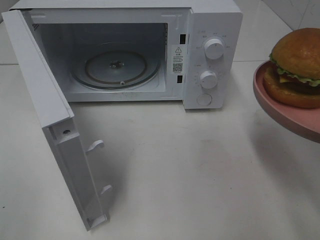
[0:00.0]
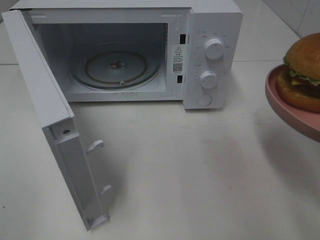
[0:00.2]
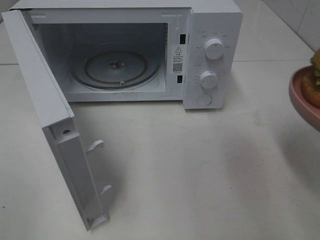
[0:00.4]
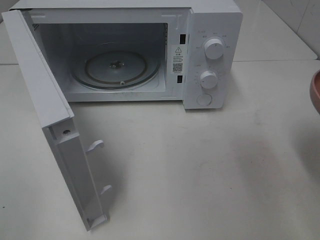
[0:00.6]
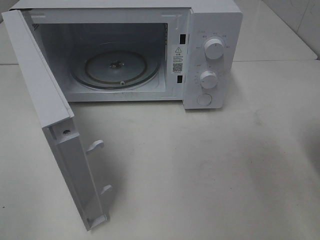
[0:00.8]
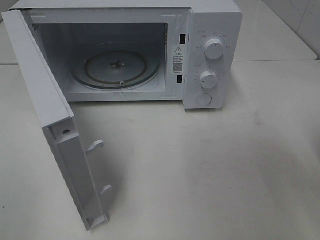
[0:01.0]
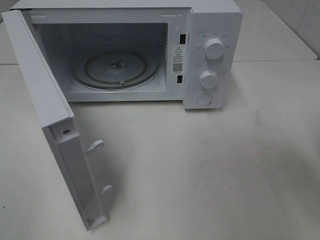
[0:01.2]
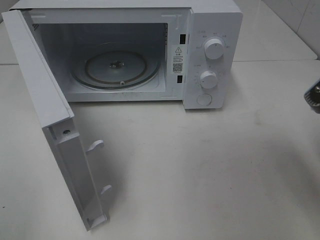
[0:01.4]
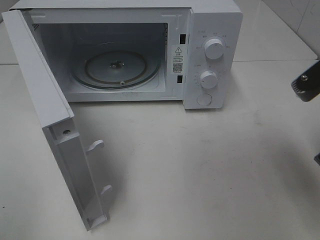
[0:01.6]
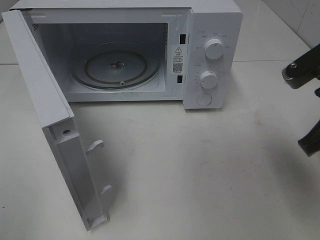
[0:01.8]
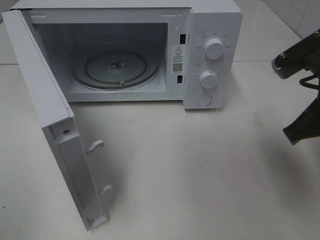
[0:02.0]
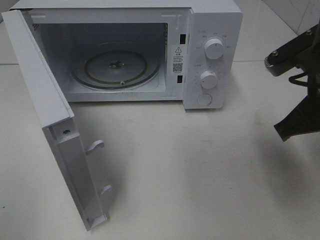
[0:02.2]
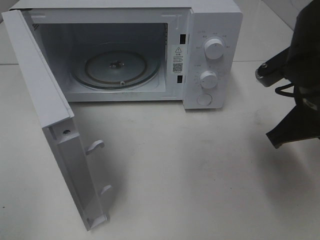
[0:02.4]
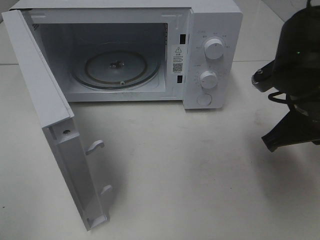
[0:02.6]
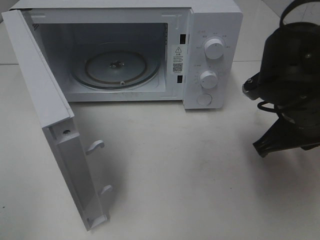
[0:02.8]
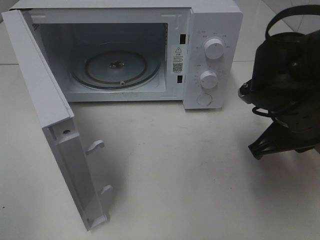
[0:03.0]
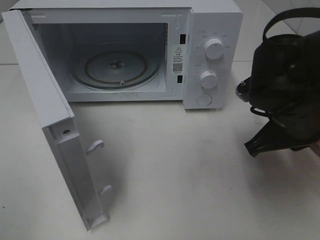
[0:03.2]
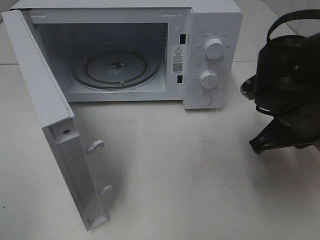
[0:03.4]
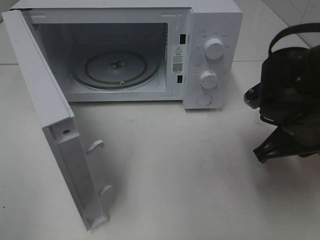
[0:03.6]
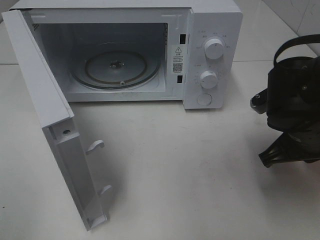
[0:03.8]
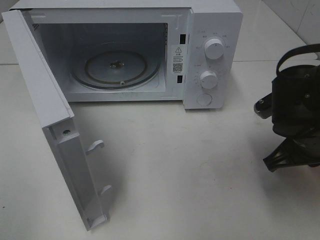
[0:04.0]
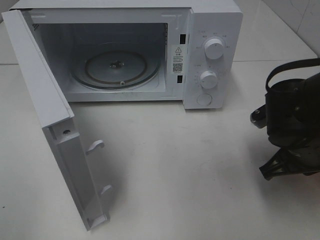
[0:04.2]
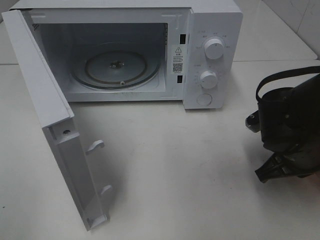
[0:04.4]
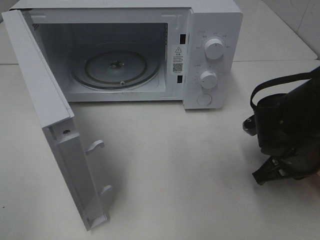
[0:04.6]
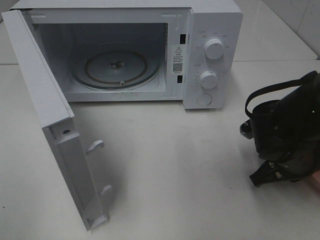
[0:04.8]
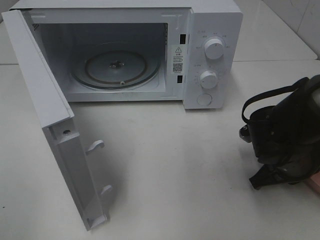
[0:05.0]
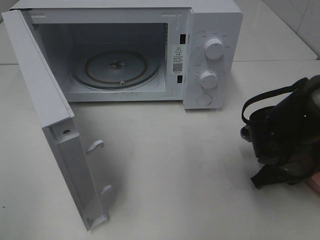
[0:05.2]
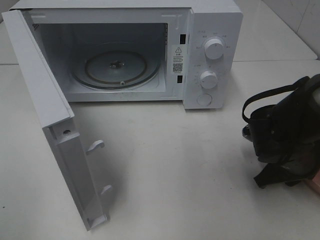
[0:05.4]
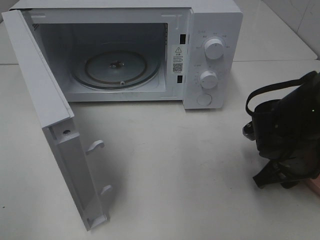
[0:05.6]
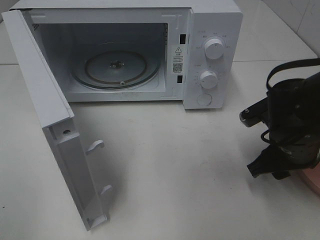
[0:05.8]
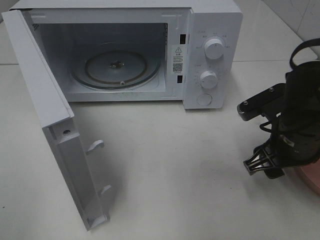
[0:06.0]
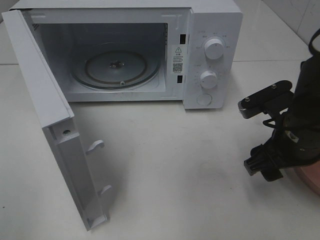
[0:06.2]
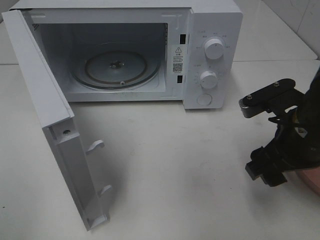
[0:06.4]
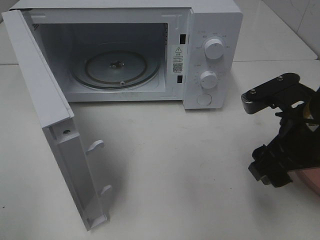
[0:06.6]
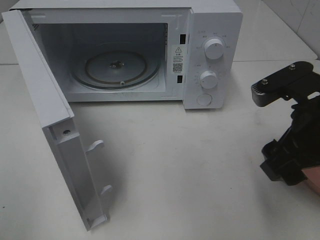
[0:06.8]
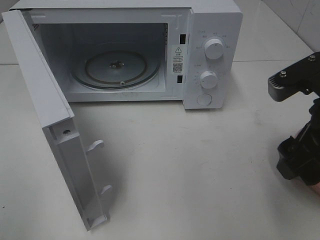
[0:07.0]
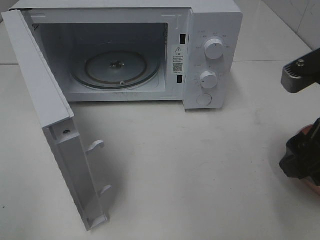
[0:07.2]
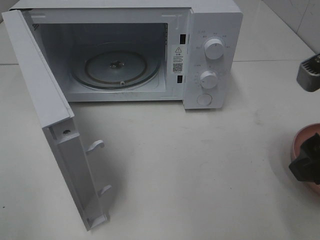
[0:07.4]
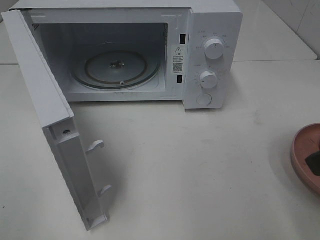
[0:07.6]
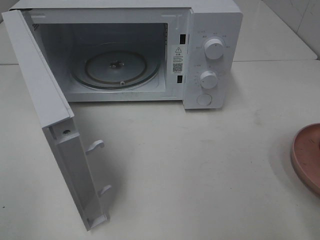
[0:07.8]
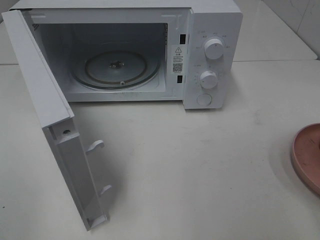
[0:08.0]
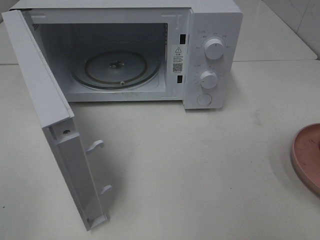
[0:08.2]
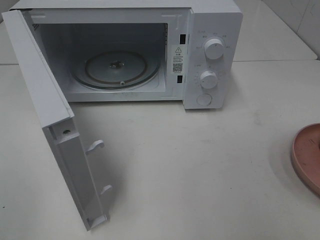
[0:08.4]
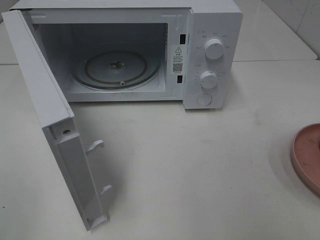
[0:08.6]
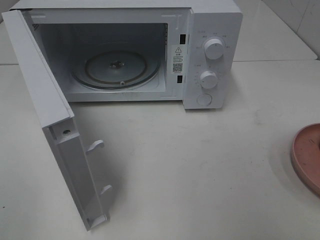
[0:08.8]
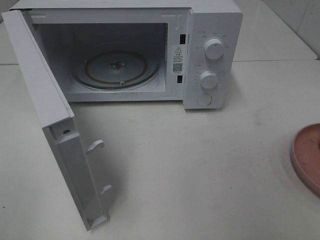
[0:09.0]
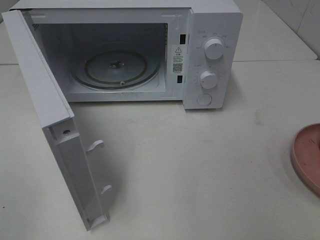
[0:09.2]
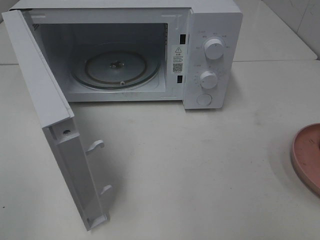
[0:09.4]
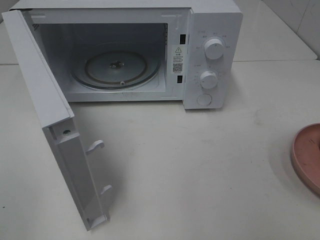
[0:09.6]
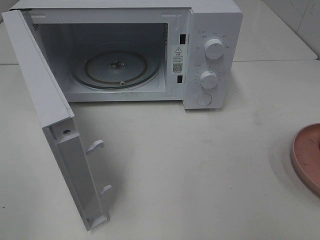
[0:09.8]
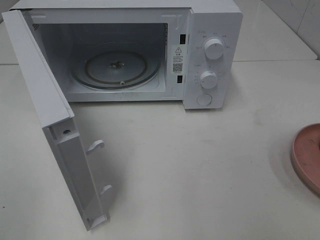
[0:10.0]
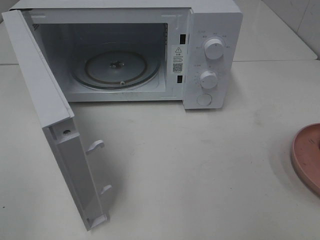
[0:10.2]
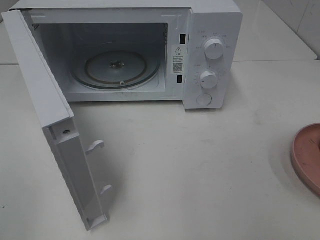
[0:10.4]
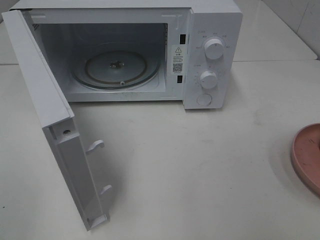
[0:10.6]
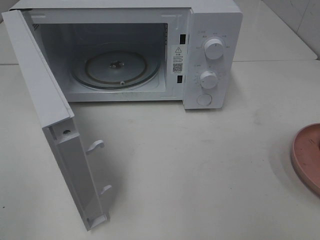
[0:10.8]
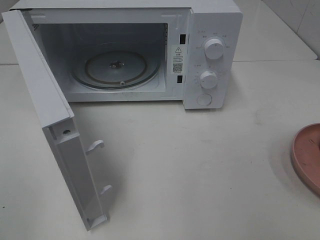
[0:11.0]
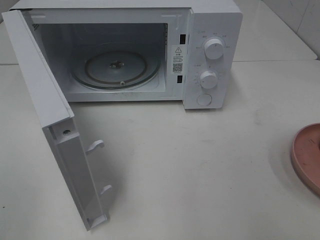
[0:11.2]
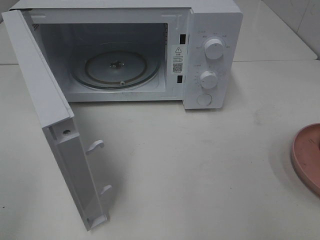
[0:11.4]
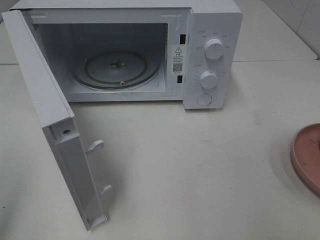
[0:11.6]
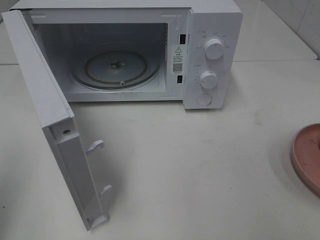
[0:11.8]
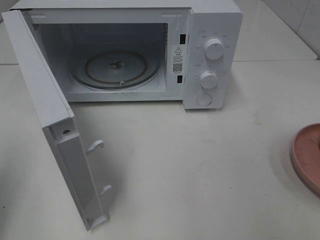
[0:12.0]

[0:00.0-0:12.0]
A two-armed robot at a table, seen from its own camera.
Task of the whole recording: Heat the burger.
Step, 0:00.0 to 0:05.8: Right hand: place the plate on the table.
0:00.0 to 0:01.6: The right gripper moves forward, approximately 5 cm.
0:01.6 to 0:03.0: The right gripper goes some 10 cm downward and forward.
0:03.0 to 0:04.4: The right gripper travels downward by roughly 5 cm.
0:04.4 to 0:06.0: The right gripper opens its fingers.
0:06.0 to 0:07.6: The right gripper shifts about 15 cm upward and backward.
0:07.6 to 0:09.0: The right gripper goes roughly 15 cm backward and to the right.
0:09.0 to 0:10.4: The two grippers keep their place.
0:10.4 to 0:12.0: The left gripper moves forward, approximately 10 cm, and closes its fingers.

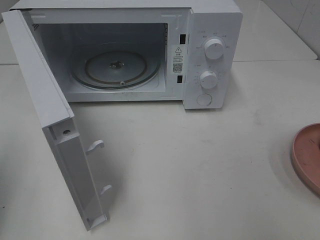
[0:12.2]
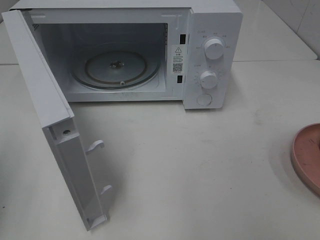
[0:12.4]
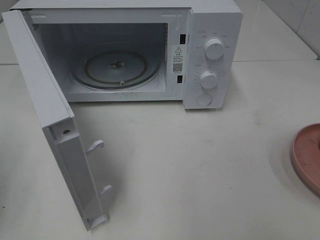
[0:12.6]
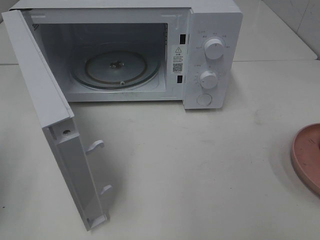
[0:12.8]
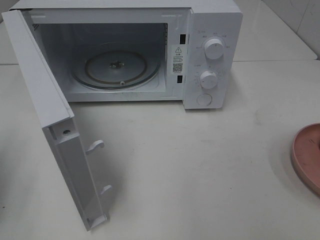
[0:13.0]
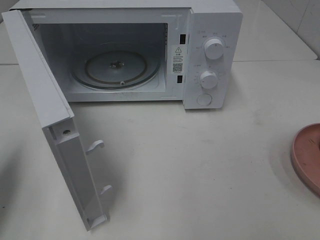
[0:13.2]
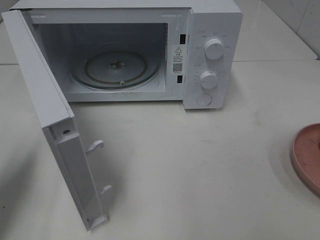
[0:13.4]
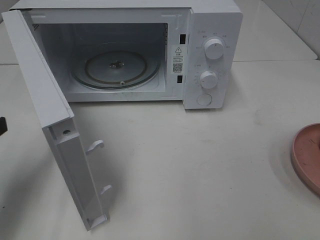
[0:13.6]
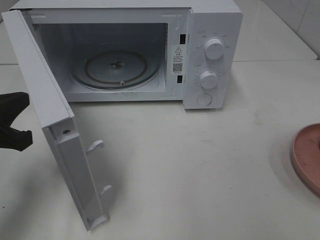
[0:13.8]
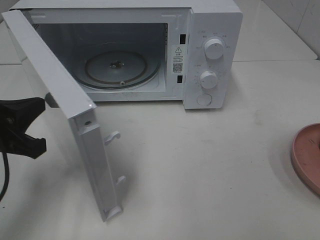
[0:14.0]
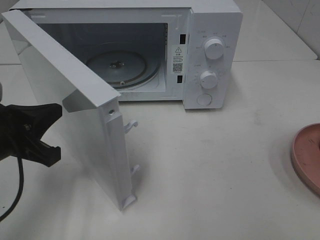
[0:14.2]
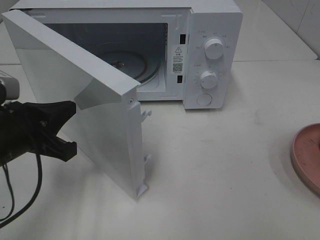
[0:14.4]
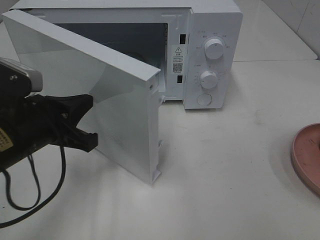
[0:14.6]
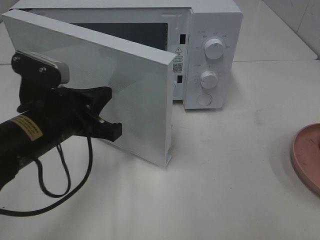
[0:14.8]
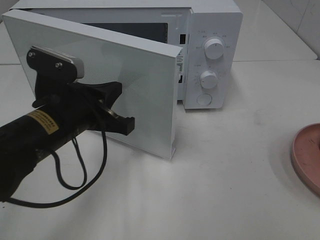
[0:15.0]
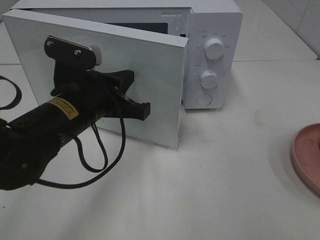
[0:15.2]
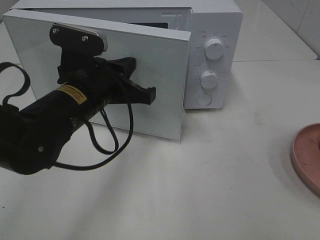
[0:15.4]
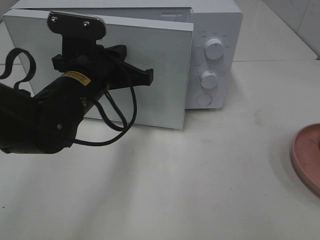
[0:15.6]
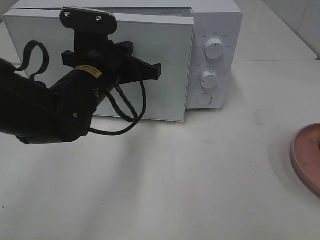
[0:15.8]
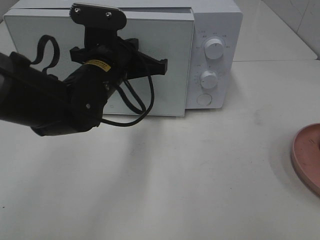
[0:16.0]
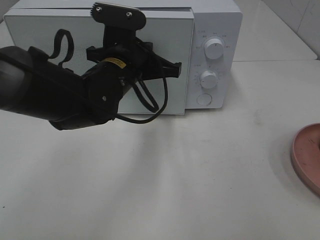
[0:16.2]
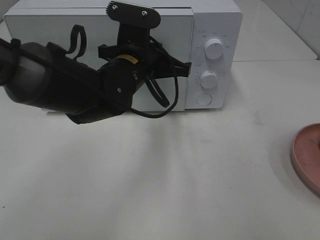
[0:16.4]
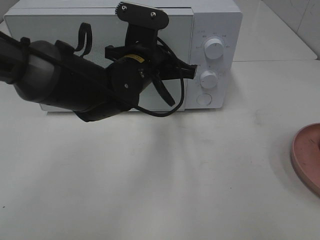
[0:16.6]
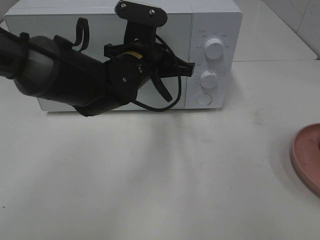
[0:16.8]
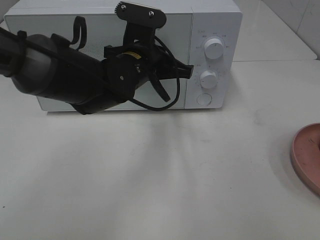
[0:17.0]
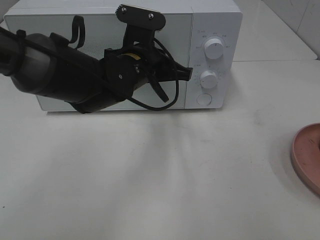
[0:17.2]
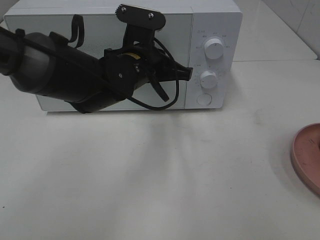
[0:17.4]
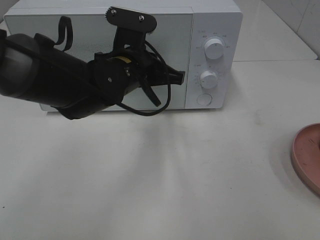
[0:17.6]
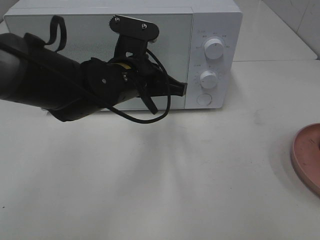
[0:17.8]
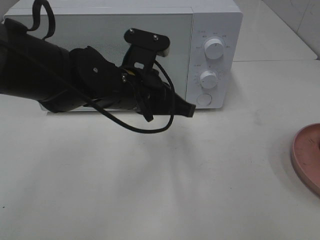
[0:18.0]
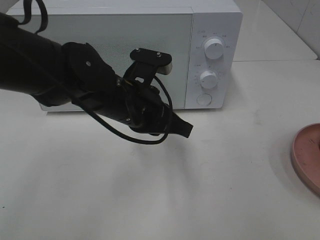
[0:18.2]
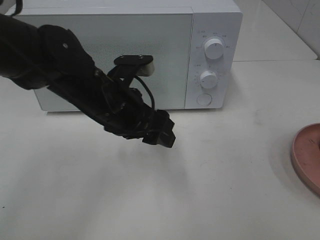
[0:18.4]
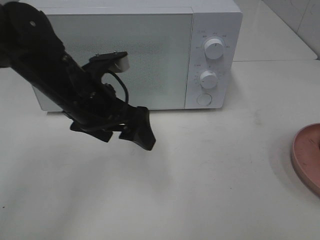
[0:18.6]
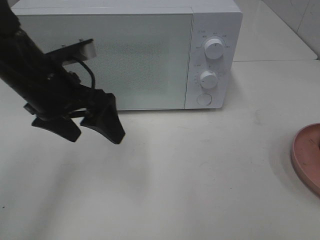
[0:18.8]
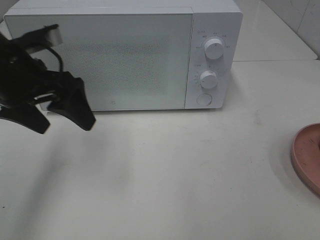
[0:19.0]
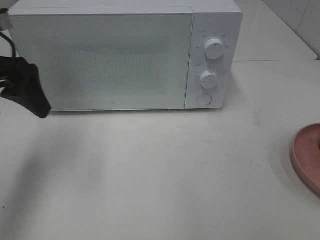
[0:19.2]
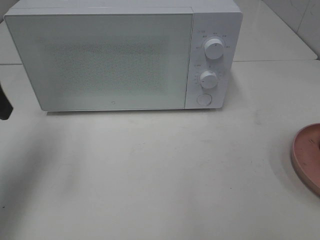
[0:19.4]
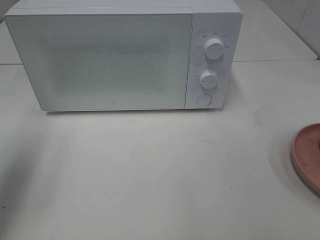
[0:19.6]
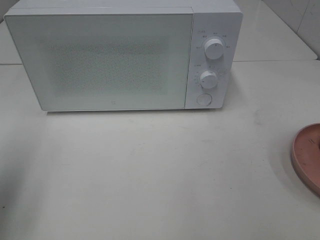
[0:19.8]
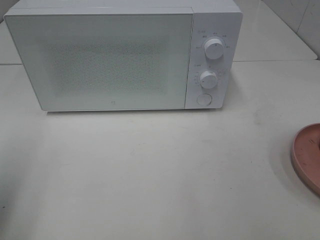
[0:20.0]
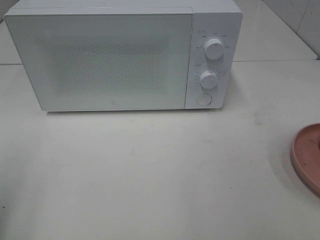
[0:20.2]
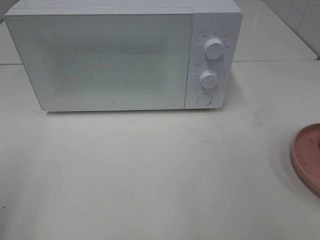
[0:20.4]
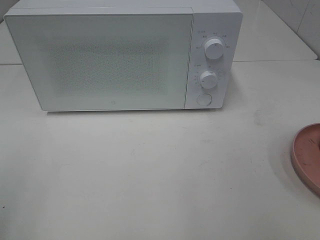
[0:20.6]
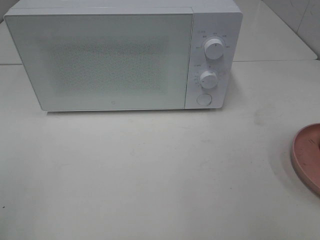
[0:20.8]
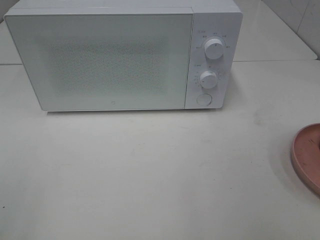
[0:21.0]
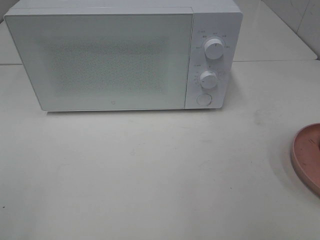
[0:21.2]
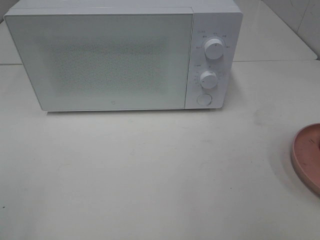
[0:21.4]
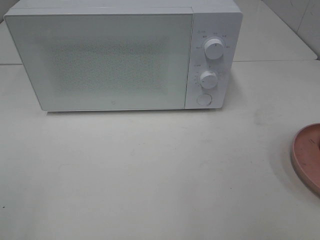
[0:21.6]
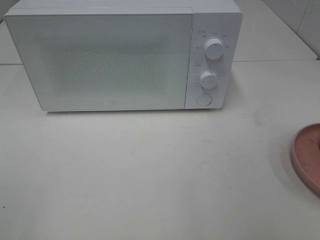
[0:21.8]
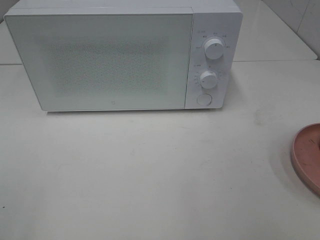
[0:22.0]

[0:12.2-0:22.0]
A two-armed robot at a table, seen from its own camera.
Task of the whole recording: Heat the burger.
Step, 0:12.2 to 0:18.0: Left hand: close the microwave door.
0:12.2 to 0:13.6: The left gripper shifts approximately 10 cm downward, forward and to the right.
0:13.6 to 0:15.0: The left gripper shifts about 15 cm to the right.
0:15.0 to 0:16.4: The left gripper shifts approximately 15 cm forward and to the right.
0:16.4 to 0:17.8: The grippers stay close to where they were, moving slightly.
0:17.8 to 0:19.2: The left gripper is displaced to the left and upward by approximately 20 cm, and opens.
0:19.2 to 0:20.6: The left gripper travels backward by some 20 cm.
